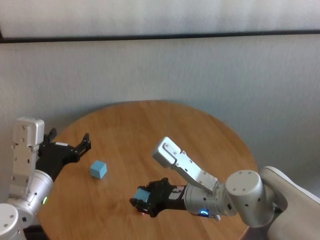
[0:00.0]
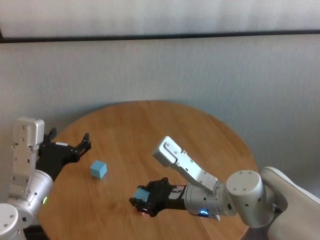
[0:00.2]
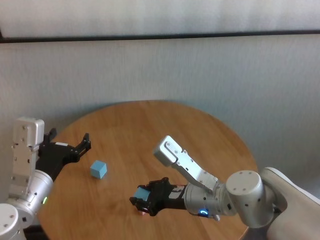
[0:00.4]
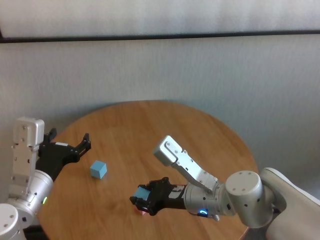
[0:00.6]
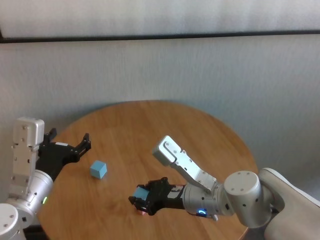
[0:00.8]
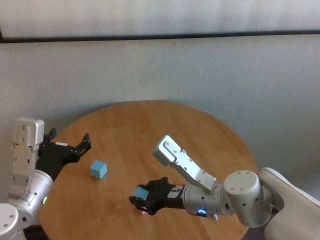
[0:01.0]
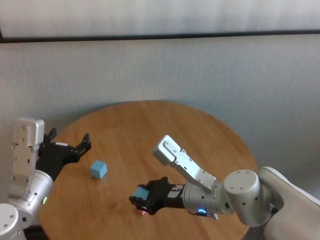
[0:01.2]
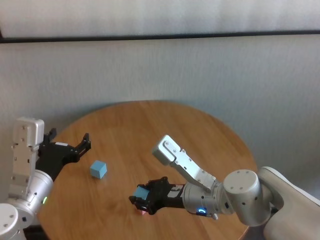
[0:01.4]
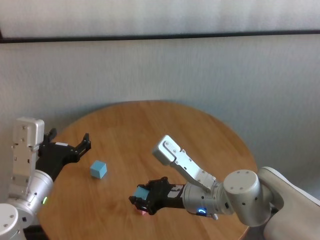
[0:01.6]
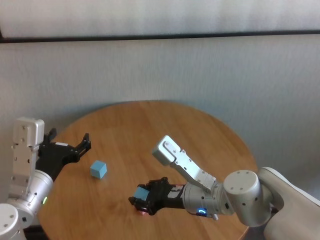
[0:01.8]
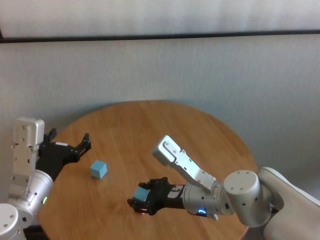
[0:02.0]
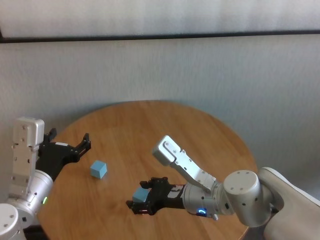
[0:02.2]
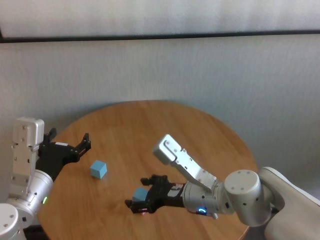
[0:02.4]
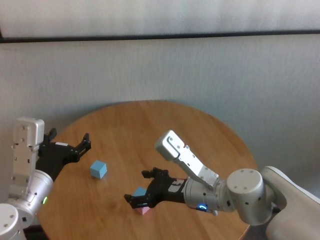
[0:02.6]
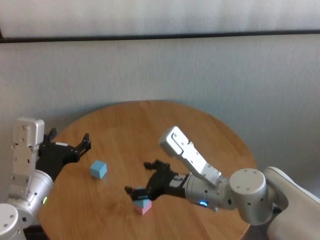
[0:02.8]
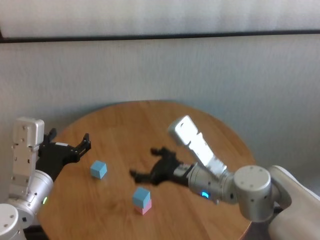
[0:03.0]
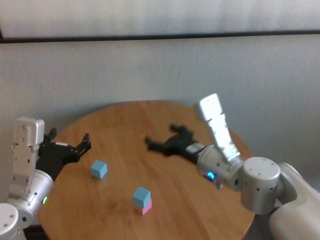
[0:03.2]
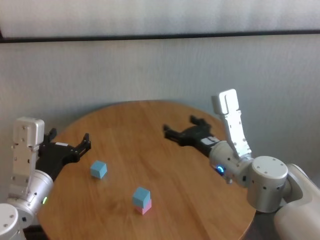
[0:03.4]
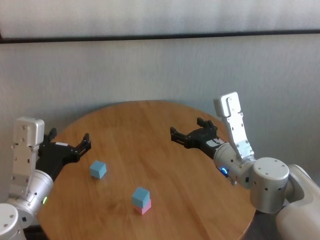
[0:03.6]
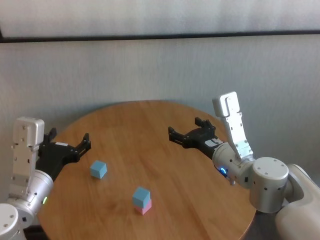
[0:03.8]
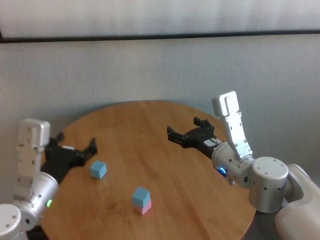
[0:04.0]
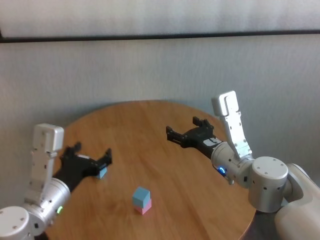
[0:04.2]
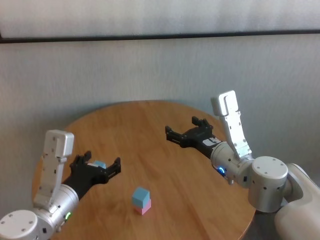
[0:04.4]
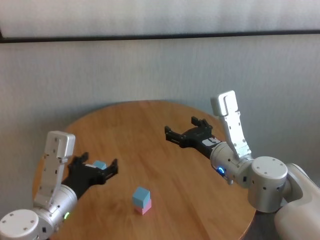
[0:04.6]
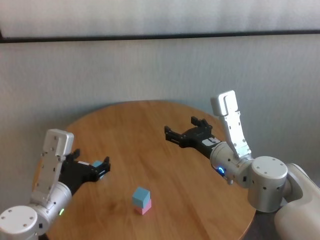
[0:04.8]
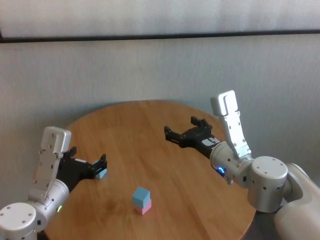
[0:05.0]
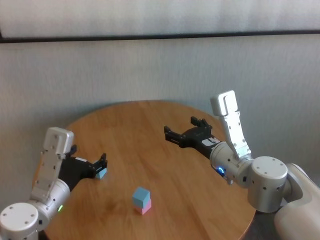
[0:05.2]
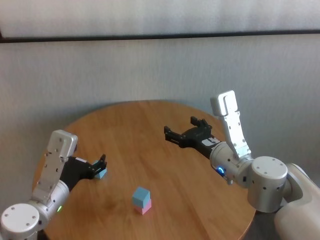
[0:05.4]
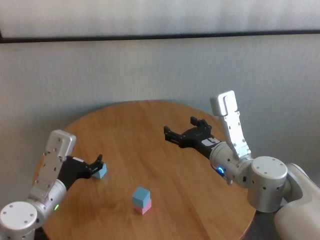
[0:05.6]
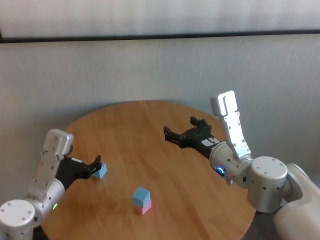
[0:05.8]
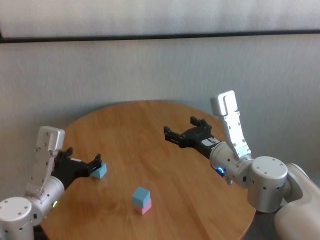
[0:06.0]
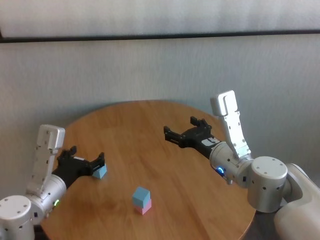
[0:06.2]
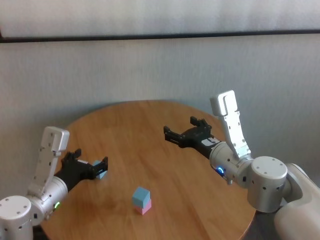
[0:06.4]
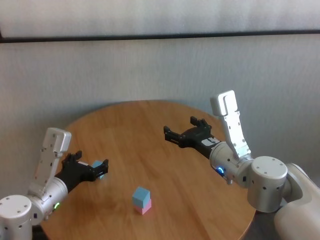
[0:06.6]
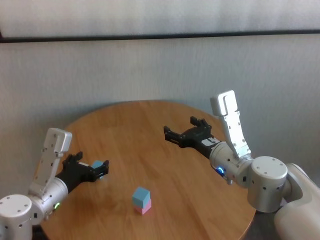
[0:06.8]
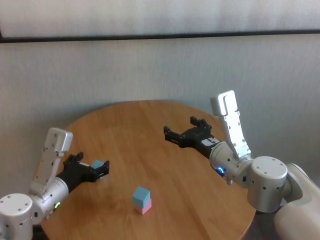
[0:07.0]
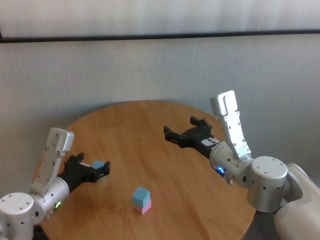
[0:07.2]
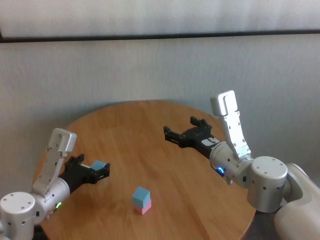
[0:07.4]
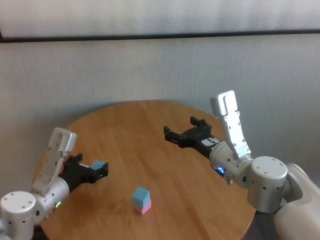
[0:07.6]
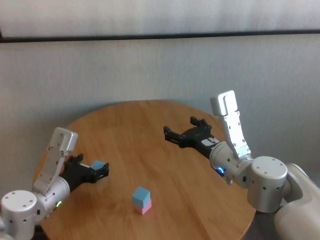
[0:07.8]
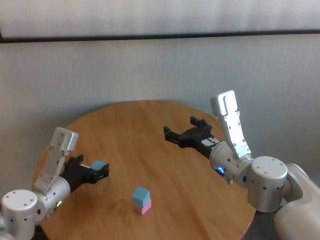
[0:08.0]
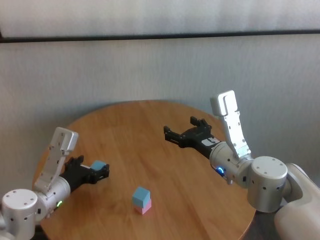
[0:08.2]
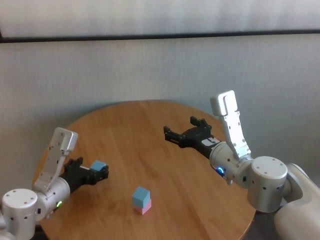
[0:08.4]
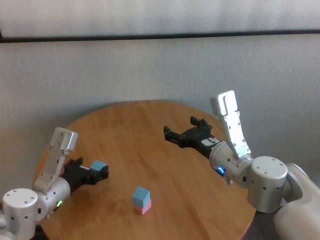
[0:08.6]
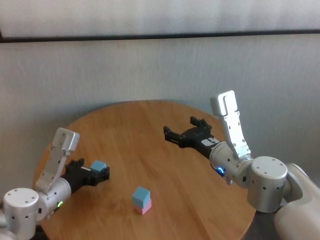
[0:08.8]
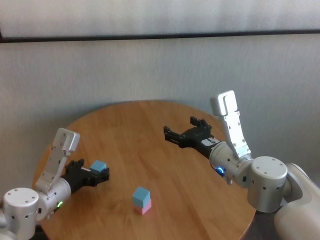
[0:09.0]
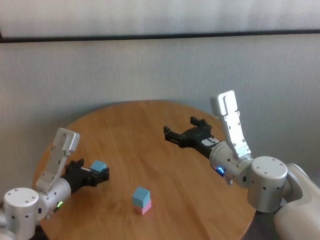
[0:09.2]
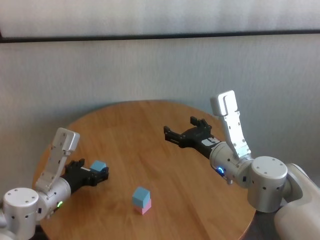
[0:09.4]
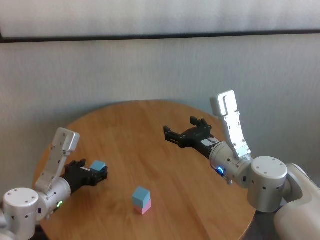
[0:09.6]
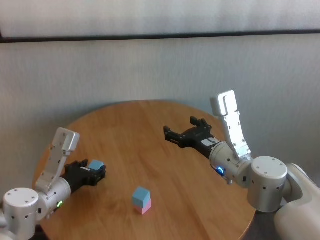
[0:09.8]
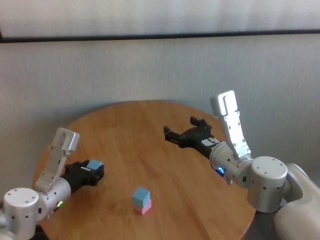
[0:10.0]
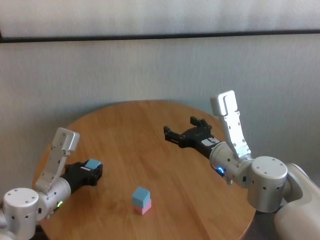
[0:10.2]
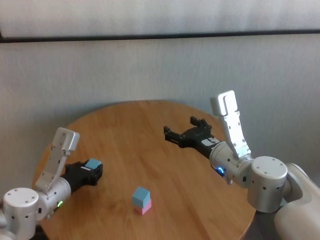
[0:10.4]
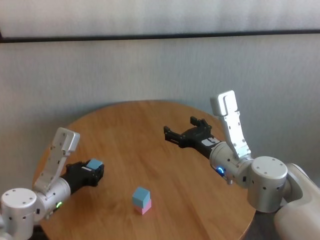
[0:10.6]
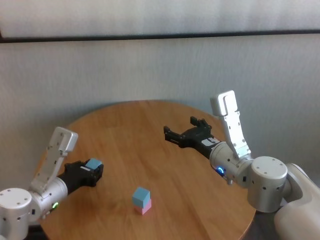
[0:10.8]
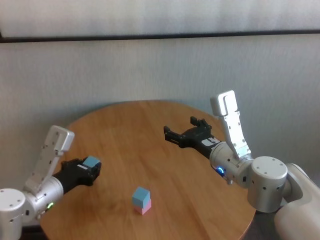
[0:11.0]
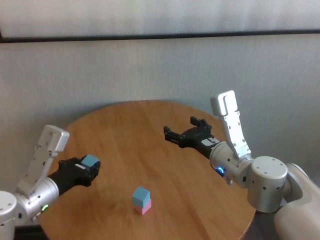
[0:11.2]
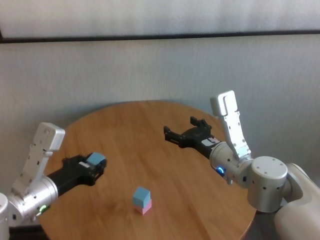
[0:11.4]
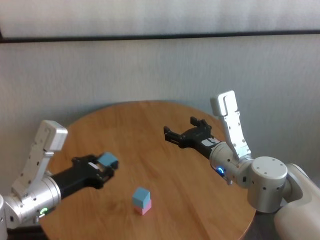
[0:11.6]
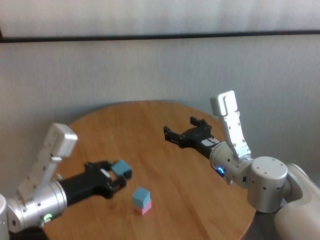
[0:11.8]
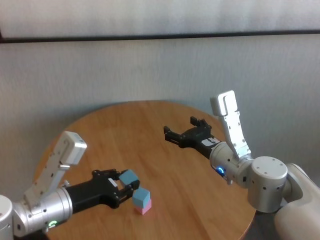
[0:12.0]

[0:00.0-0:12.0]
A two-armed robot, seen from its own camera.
Task of the whole recording: stack building blocks on the table.
Step, 0:00.0 to 0:02.2: Place the blue building block on the pink building blocks with right gripper.
Step, 0:02.4 to 0:10.2: Grasp the blue building block with left gripper.

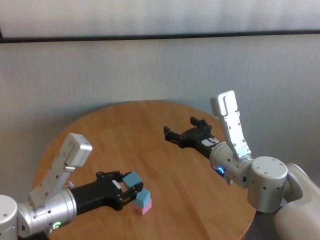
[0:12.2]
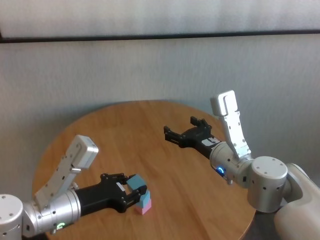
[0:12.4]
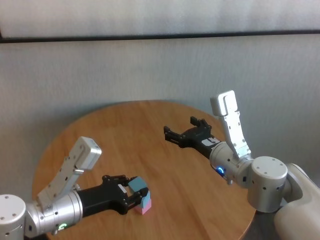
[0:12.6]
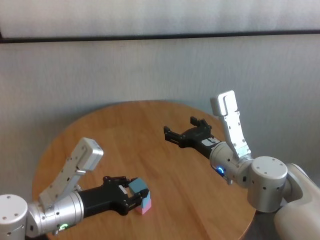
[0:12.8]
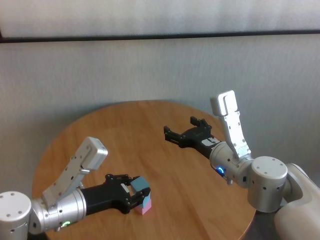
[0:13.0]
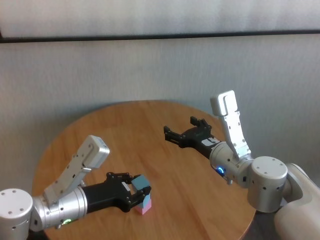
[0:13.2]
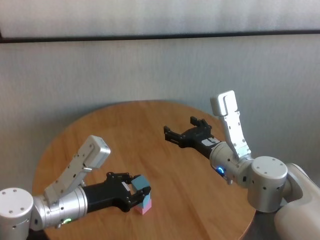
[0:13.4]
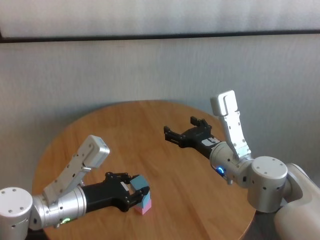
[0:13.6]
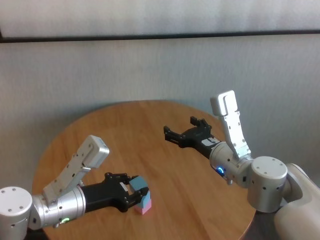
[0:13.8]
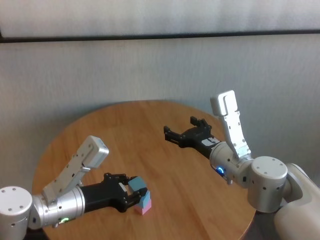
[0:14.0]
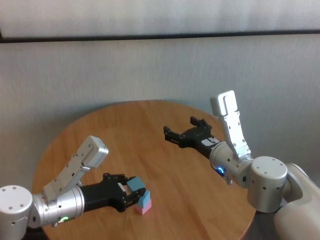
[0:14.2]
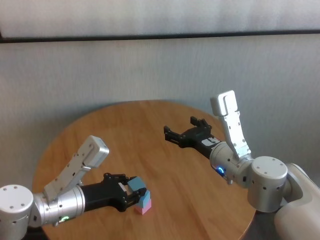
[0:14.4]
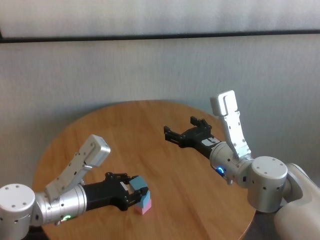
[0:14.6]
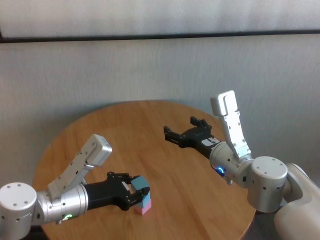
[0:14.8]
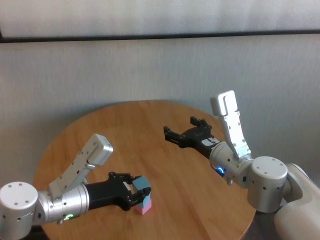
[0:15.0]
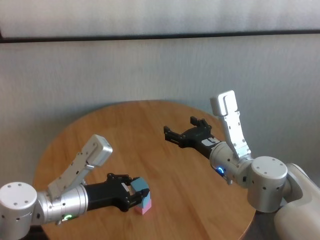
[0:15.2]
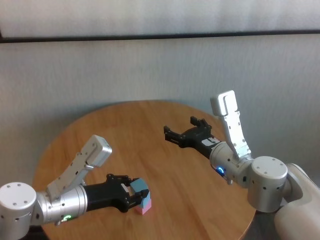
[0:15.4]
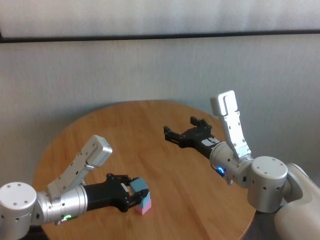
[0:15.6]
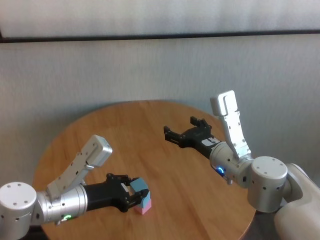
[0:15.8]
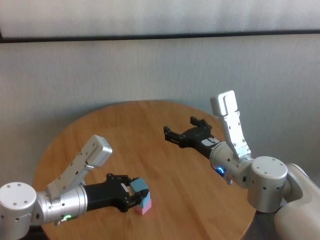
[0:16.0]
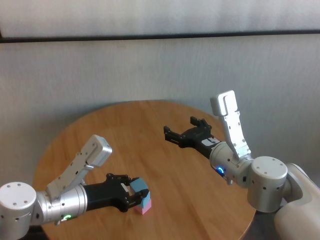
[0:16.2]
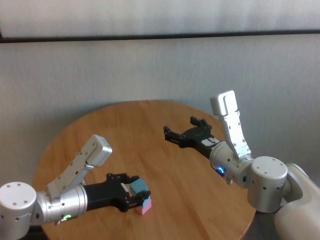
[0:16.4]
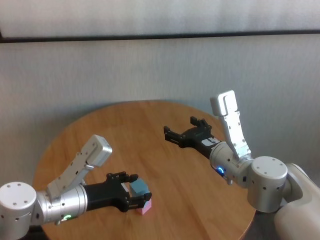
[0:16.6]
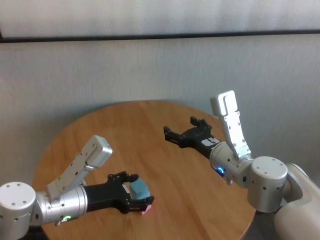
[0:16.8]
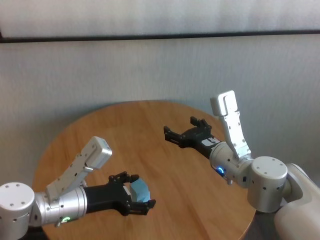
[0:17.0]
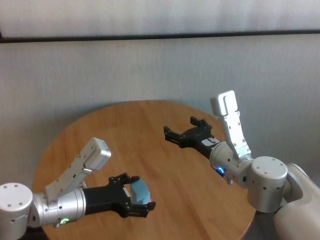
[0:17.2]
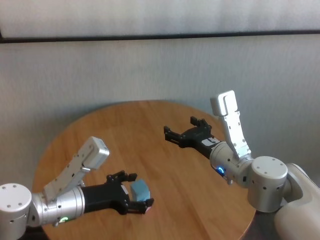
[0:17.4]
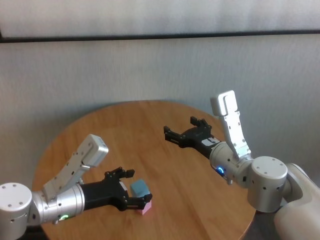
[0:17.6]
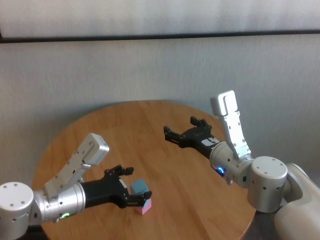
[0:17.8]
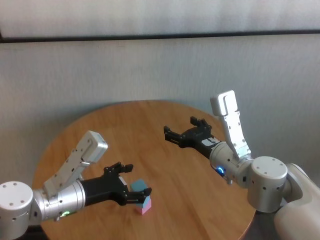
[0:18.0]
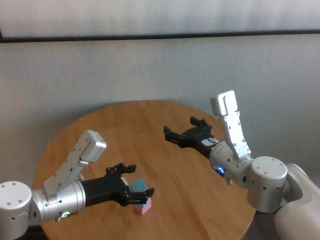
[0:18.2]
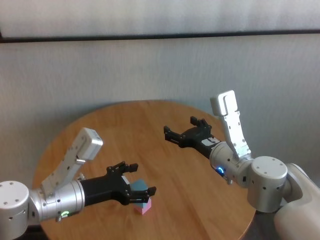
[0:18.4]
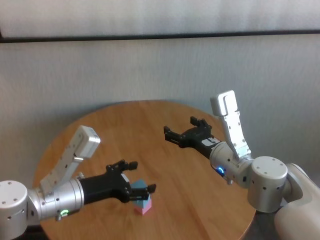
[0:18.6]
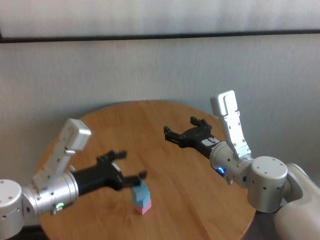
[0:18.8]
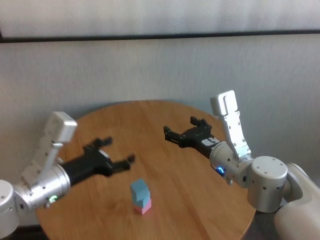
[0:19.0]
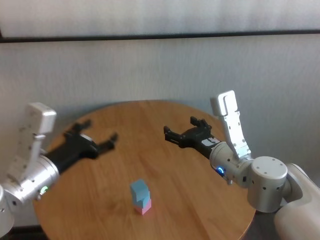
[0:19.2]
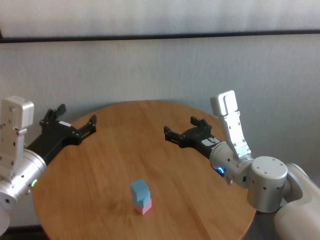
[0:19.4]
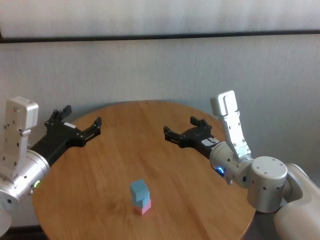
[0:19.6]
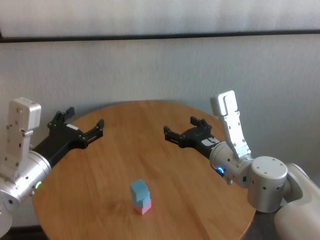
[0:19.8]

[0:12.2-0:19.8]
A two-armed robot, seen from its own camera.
Task of the whole recording: stack building blocks on the table.
Step, 0:12.2 to 0:16.6: Place the blue building block on the blue building blocks with left gripper.
